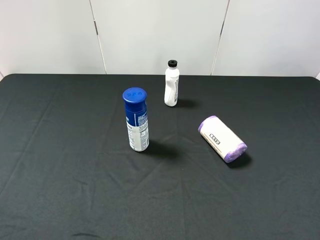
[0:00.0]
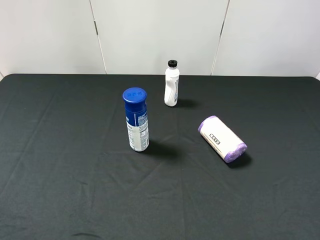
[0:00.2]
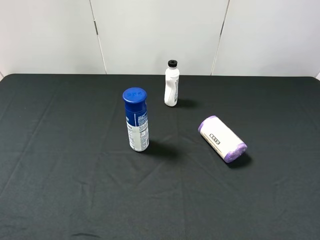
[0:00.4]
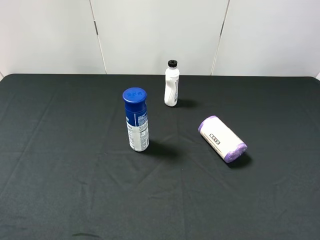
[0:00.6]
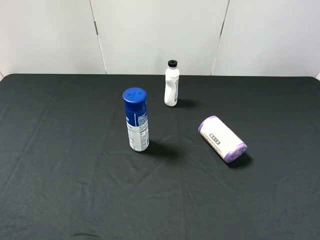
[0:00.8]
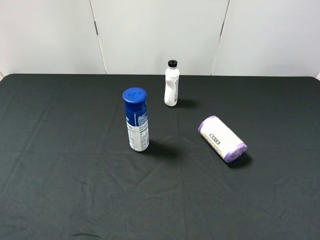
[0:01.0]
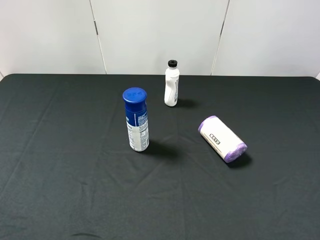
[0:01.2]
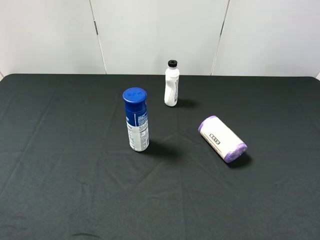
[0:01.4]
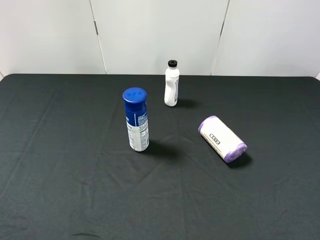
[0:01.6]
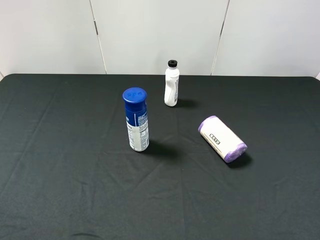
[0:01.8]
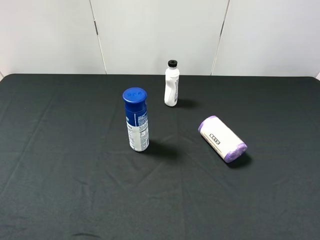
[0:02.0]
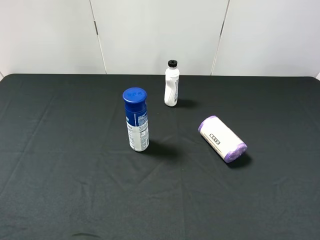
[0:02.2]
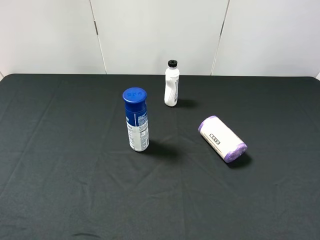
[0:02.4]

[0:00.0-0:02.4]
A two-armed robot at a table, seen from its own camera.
Task of the whole recording: use the left gripper to pick up the item and transfer it from the left gripper to the right gripper.
0:01.2 to 0:02.4: Both grippers stay about where they are.
